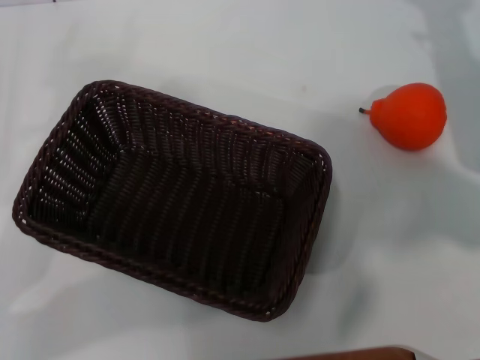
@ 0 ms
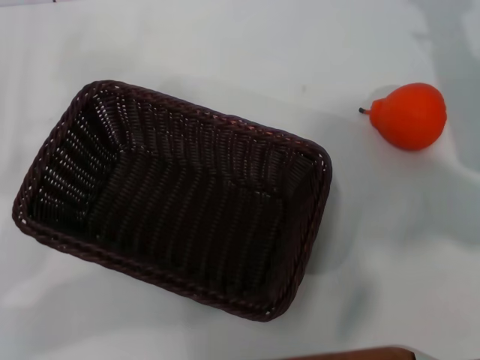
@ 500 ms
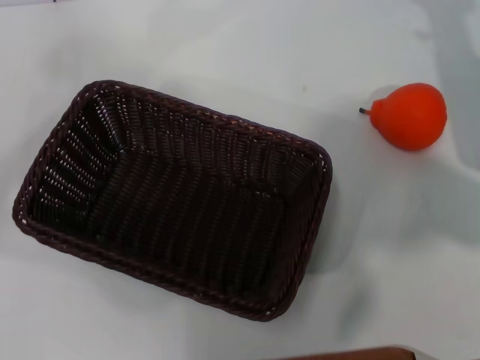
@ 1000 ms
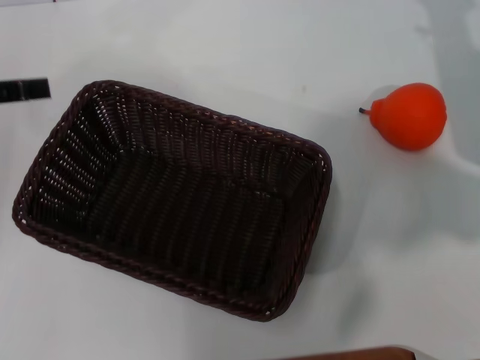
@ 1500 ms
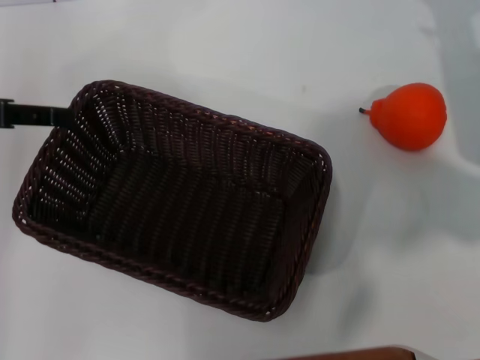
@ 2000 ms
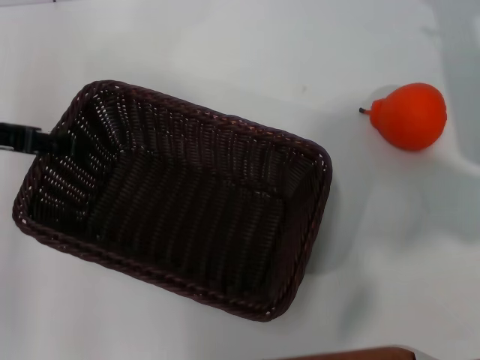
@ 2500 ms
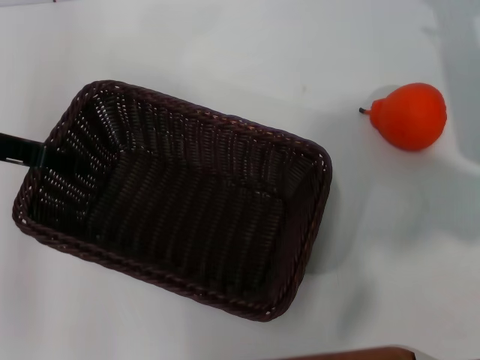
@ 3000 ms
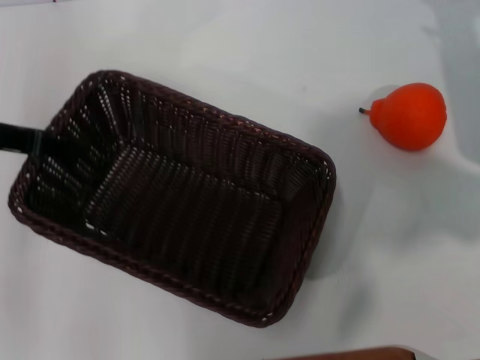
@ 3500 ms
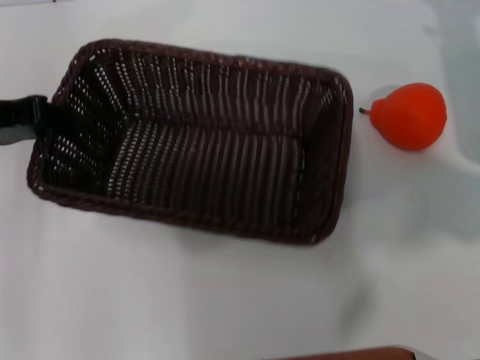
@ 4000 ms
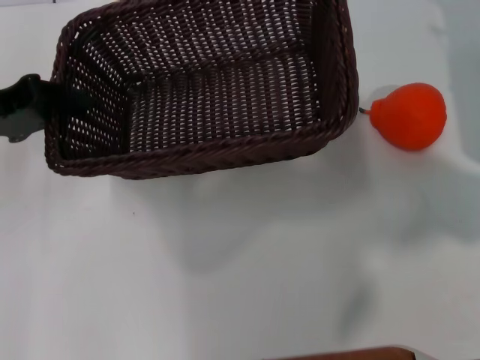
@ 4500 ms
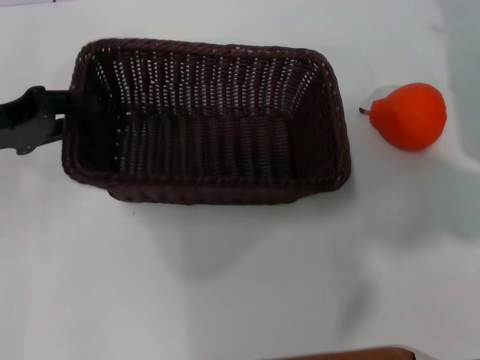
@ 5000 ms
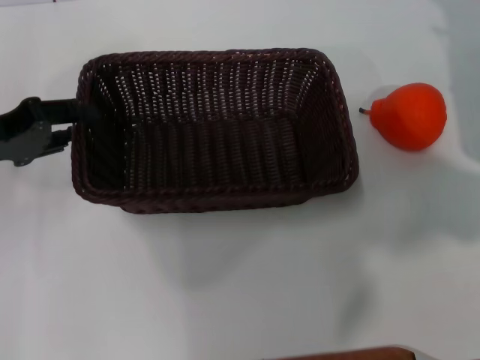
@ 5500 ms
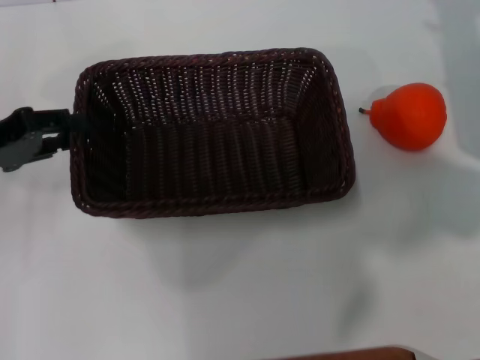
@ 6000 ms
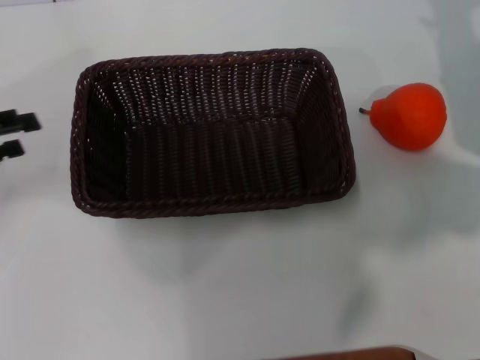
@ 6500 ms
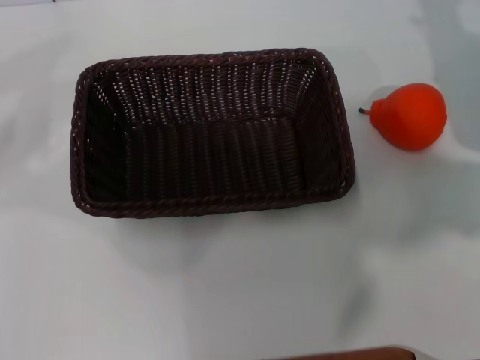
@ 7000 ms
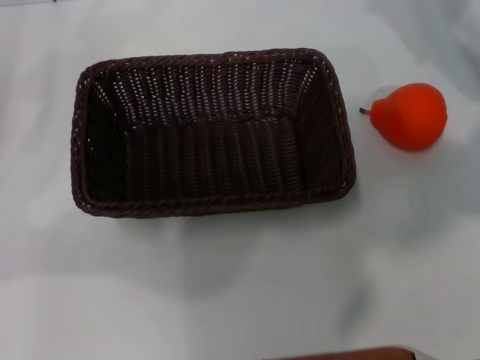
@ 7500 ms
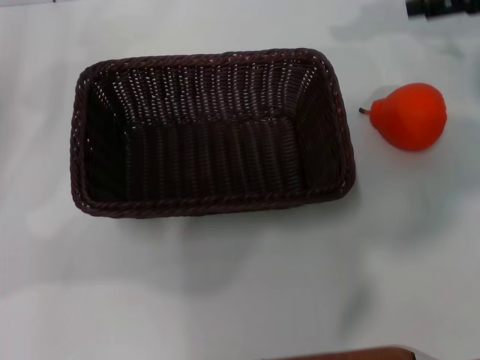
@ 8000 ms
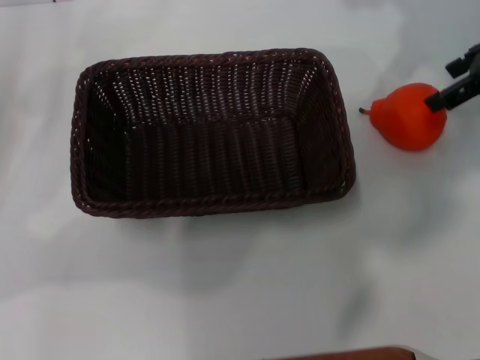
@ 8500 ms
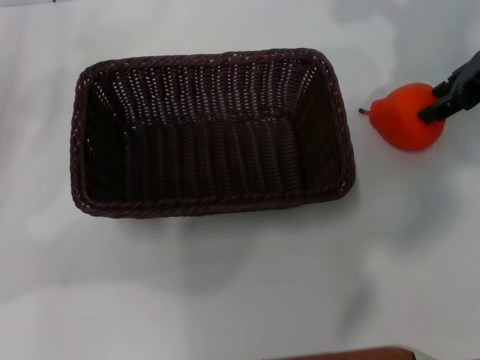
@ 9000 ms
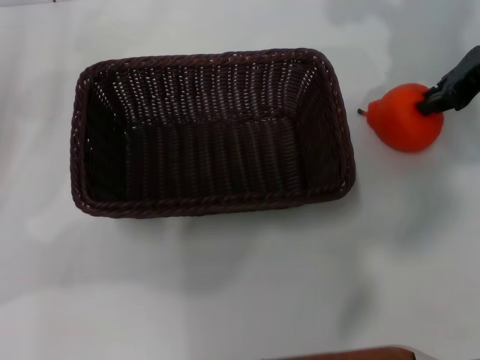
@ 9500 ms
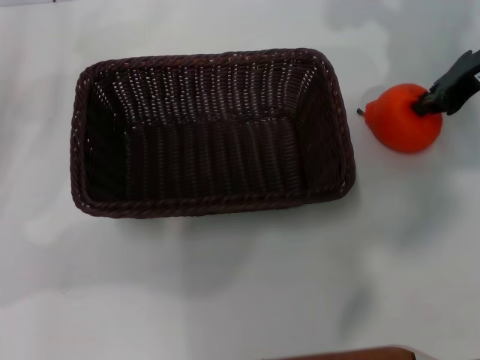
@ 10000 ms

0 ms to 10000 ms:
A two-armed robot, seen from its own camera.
Task of the whole recording: the left gripper pick up the black basket and place it horizontally in the middle of the table, the right gripper pick up the orange and place it into the black basket.
Step, 0 ms to 3500 ms: Pick up the dark basket with the left gripper.
Step, 4000 ms to 6000 ms: Place the dark basket in the center of view with the left gripper.
0 ms to 2000 ms: The left gripper moves upward and forward, about 15 cm.
2000 ms to 4000 ms: The left gripper closes up.
4000 ms to 6000 ms: The left gripper moves about 5 cm, and opens its fingers.
6000 ms to 8000 ms: The left gripper opens, while the right gripper shifts approximately 10 cm upward.
8000 ms to 10000 ms: The right gripper ends up approximately 5 cm from where it was, and closes up.

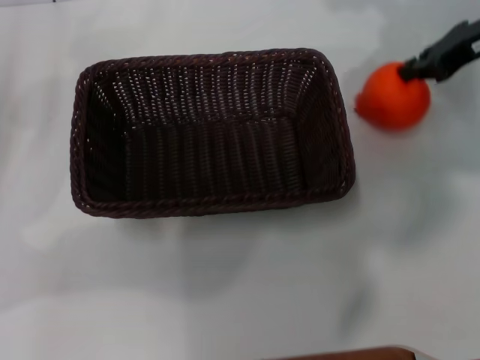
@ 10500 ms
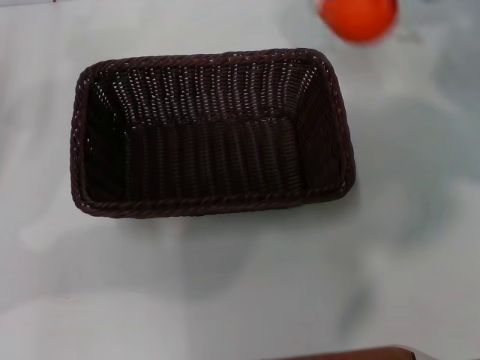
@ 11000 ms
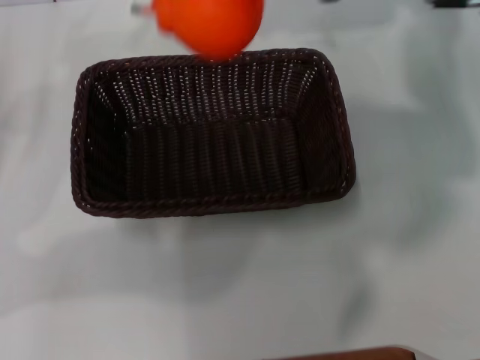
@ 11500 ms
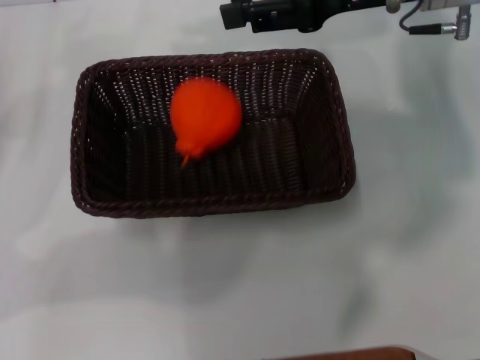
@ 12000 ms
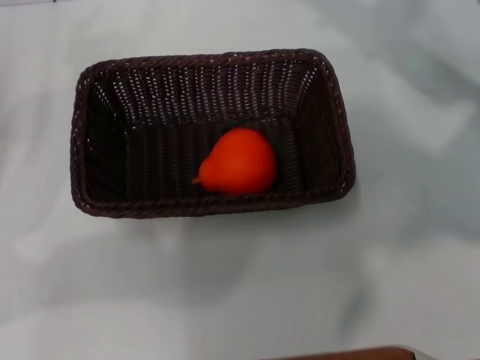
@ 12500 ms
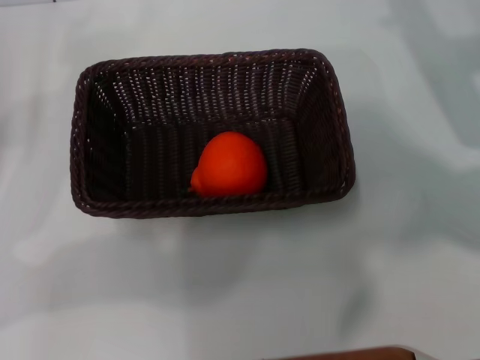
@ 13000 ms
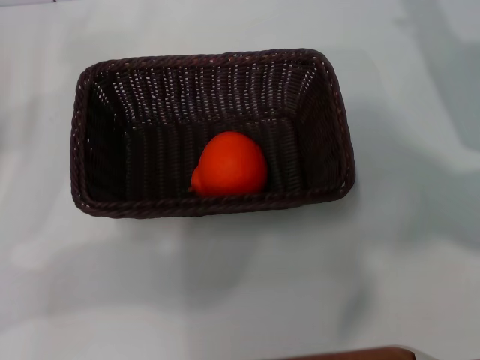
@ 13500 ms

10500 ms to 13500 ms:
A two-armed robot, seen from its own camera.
Task of the whole recording: the left gripper pick up the black basket and place it horizontally in the middle of the table, the right gripper pick up the orange and place it into the black basket.
Step, 11000 ms to 12000 ms: Place the orange into the dark basket with the right gripper.
10500 ms to 12000 ms: The right gripper goes some 10 cm to the left.
12000 ms to 13500 ms: The right gripper moves to the right, downward and backward, approximately 15 cm, and opens.

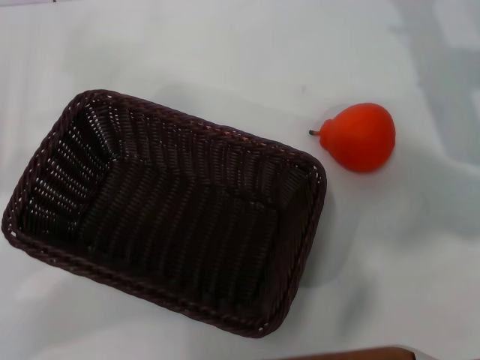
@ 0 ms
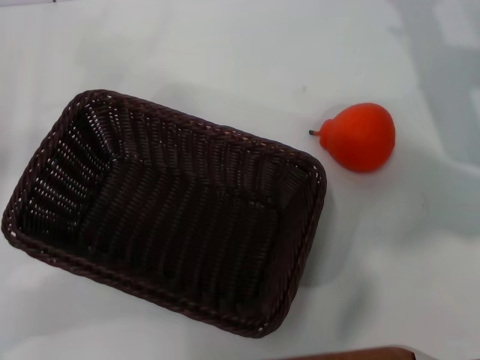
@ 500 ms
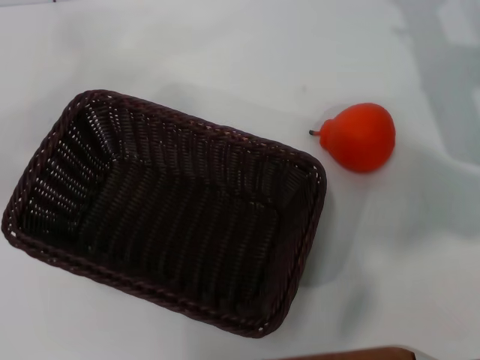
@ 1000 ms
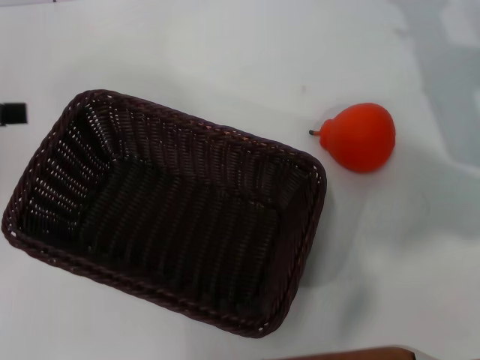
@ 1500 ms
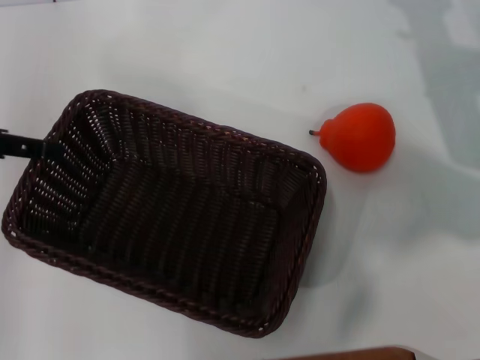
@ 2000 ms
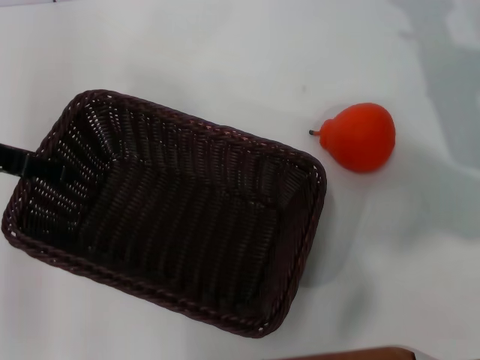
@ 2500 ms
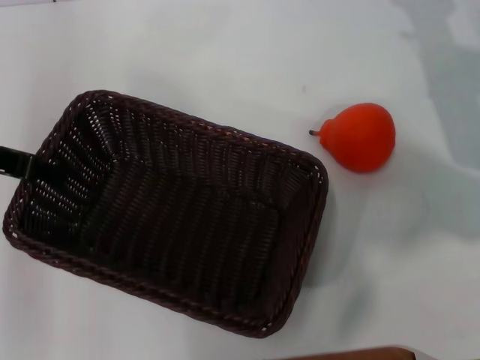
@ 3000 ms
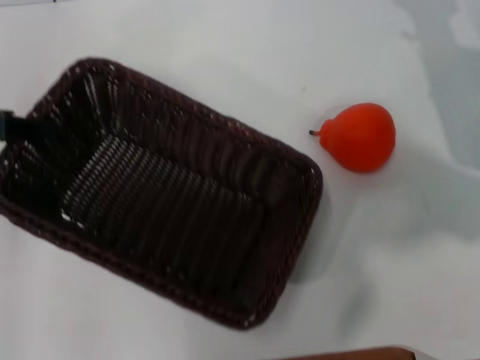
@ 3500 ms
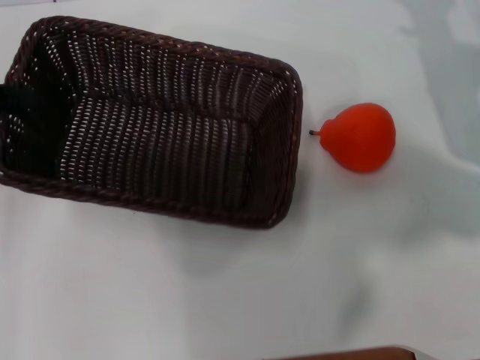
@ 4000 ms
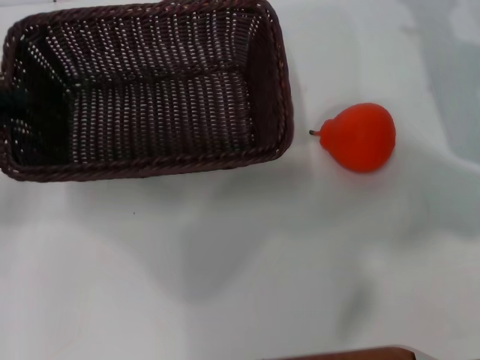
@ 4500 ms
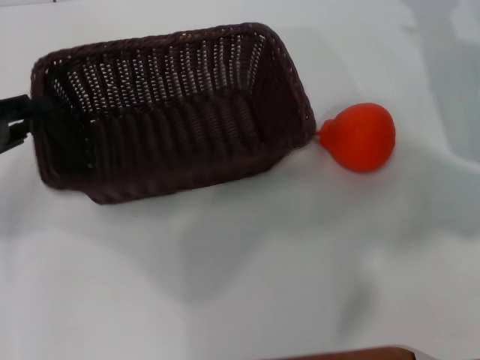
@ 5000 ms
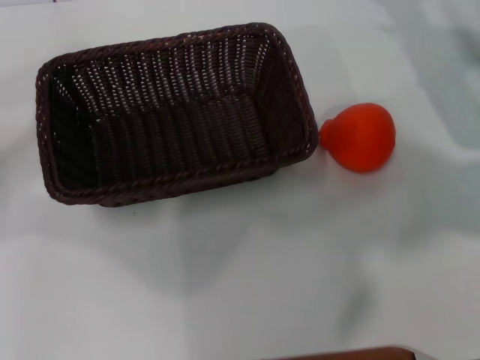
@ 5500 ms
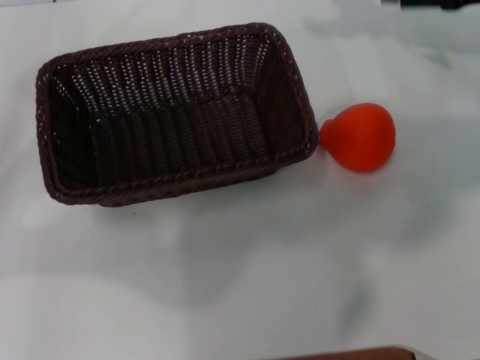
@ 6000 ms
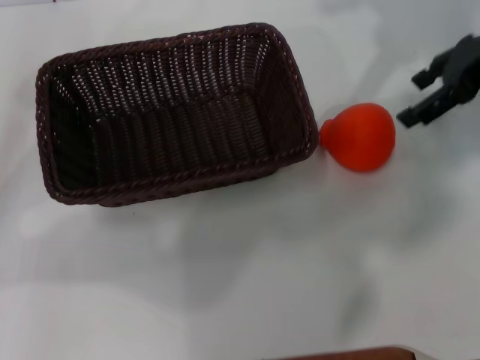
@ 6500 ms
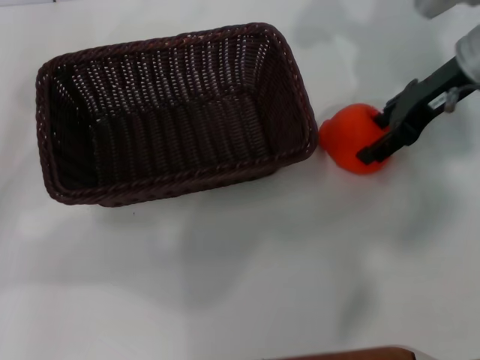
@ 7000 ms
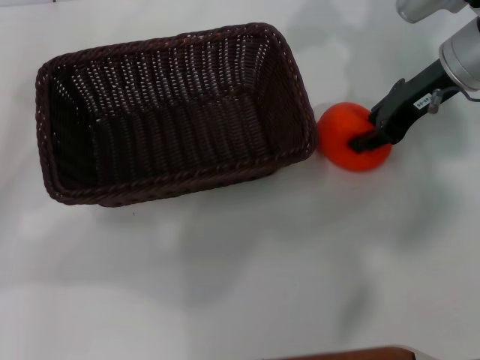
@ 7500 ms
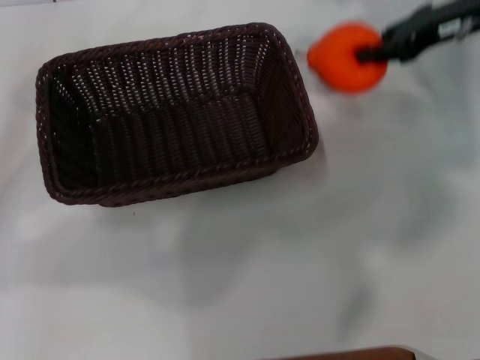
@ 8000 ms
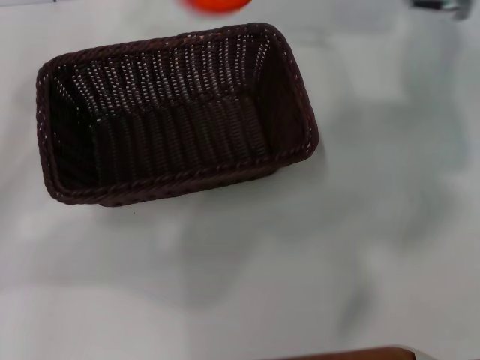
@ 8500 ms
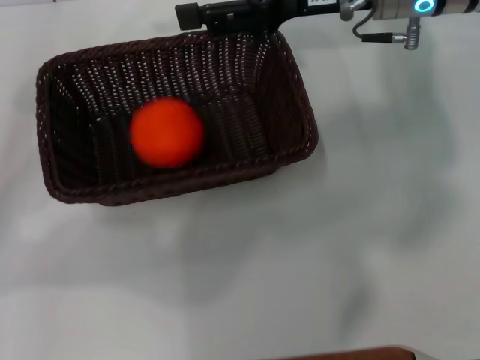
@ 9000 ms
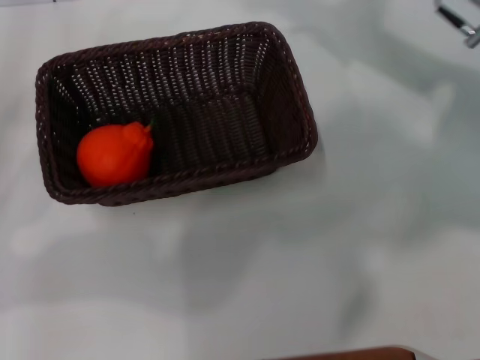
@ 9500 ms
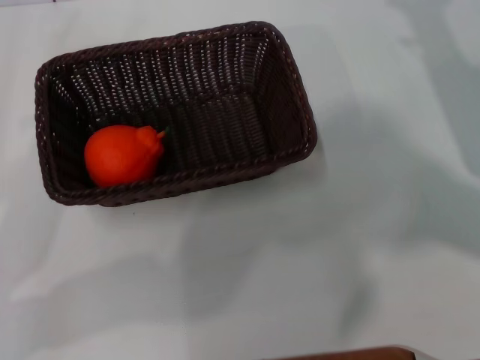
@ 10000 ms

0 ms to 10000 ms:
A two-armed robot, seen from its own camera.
Task of the whole recording: the left gripper pick up the black basket and place it horizontally in the middle of the table, the right gripper pick up the orange and place it into the black basket.
Step, 0 ms to 3000 ms: Pick up the dark basket with the left gripper.
Step, 3500 ms to 5000 ms: Place the dark basket in the center of view with the left gripper.
Step, 5500 ms to 7500 ms: Pick up the orange with the right gripper.
Step, 8000 ms to 8500 ms: Place the orange into the dark basket with the right gripper.
0 ms to 2000 ms: The left gripper goes about 15 cm upward and forward.
2000 ms to 4000 ms: The left gripper closes up.
4000 ms to 6000 ms: The left gripper ends up about 5 cm from where it was, and opens up; the right gripper is displaced upward by approximately 10 cm.
6000 ms to 8000 ms: The right gripper goes approximately 5 cm to the left, and closes its fingers.
8000 ms to 10000 ms: The right gripper heads backward and downward, covering about 15 cm, reaches roughly 10 cm to the left, then returns, and opens up, while the left gripper shifts by approximately 5 cm.
